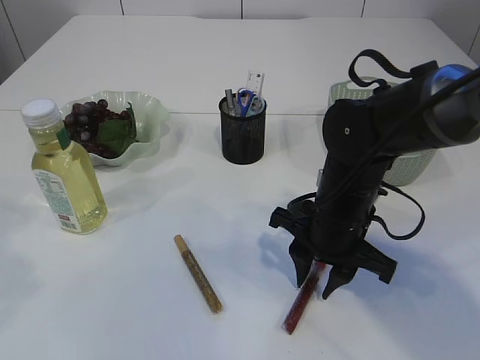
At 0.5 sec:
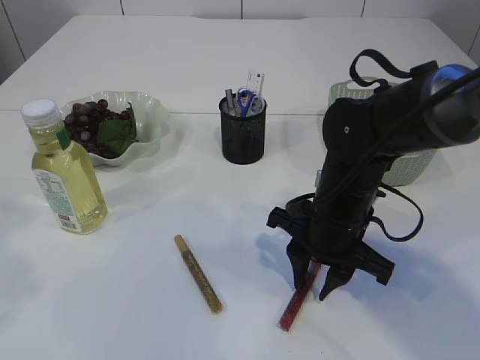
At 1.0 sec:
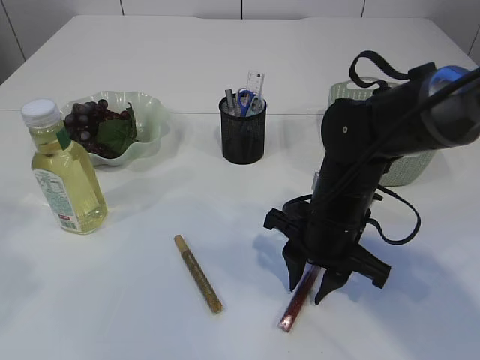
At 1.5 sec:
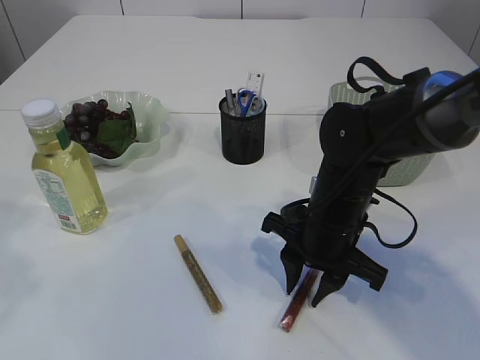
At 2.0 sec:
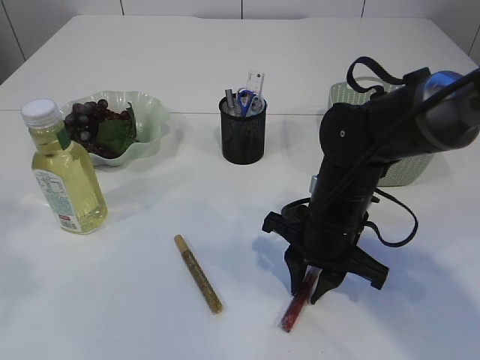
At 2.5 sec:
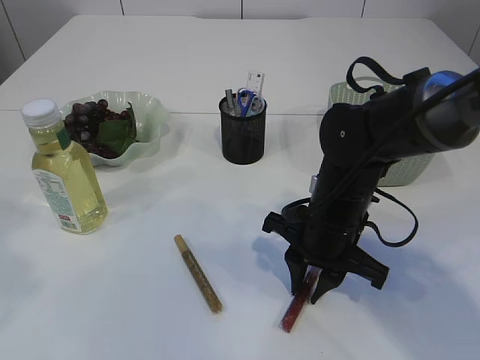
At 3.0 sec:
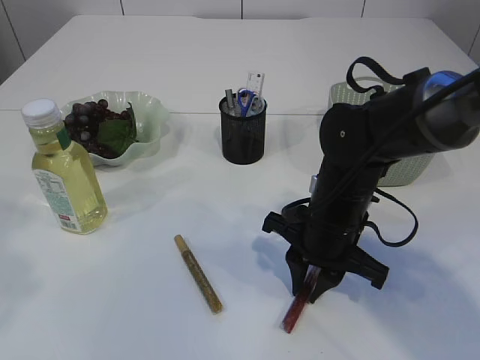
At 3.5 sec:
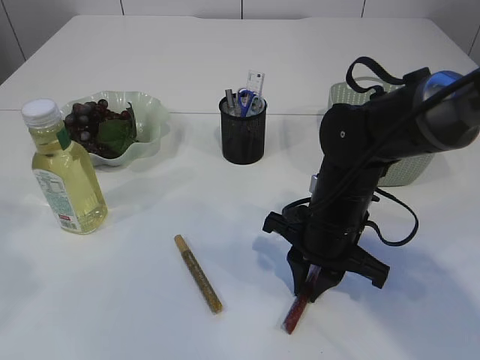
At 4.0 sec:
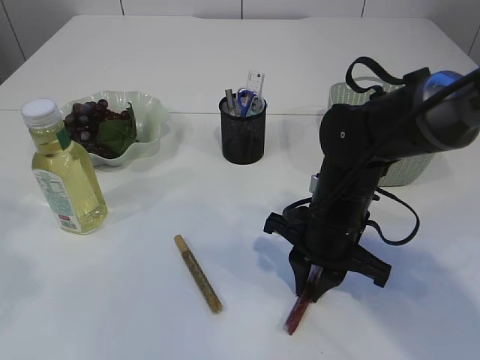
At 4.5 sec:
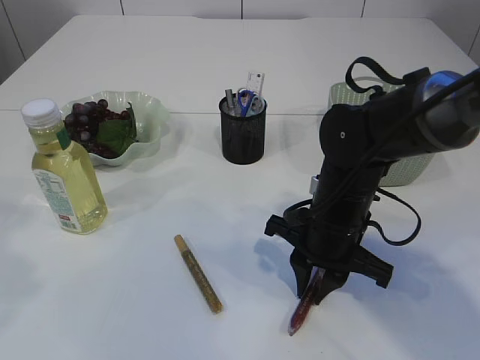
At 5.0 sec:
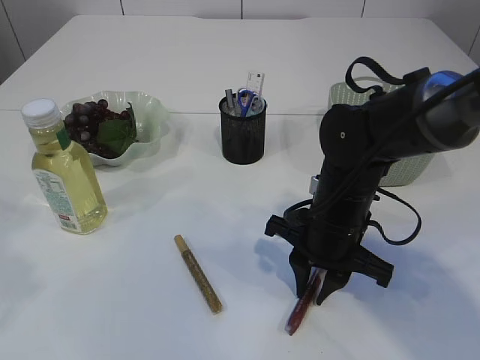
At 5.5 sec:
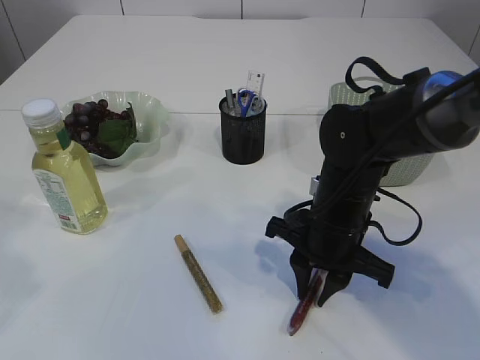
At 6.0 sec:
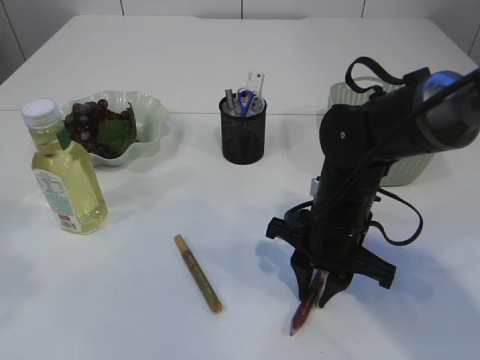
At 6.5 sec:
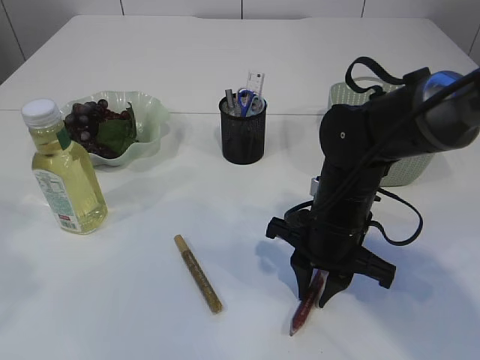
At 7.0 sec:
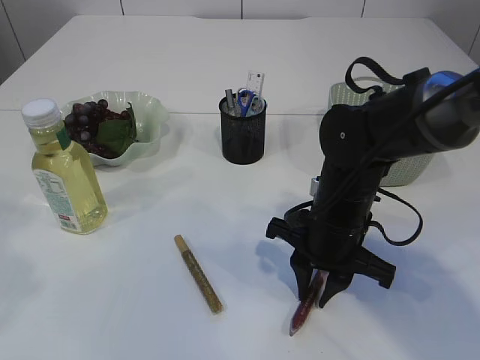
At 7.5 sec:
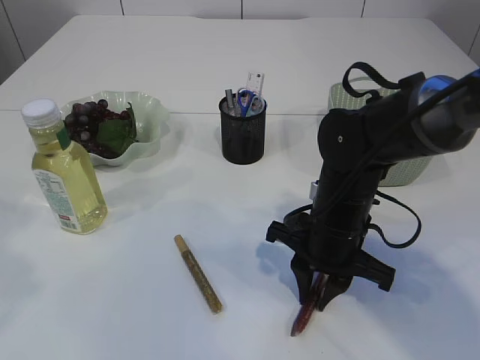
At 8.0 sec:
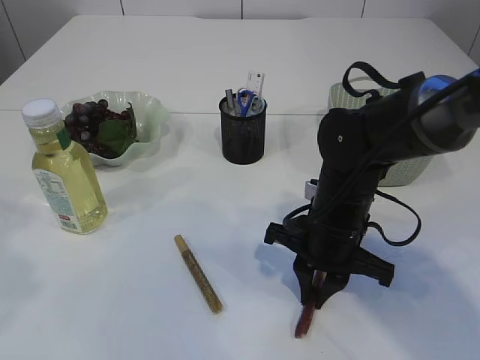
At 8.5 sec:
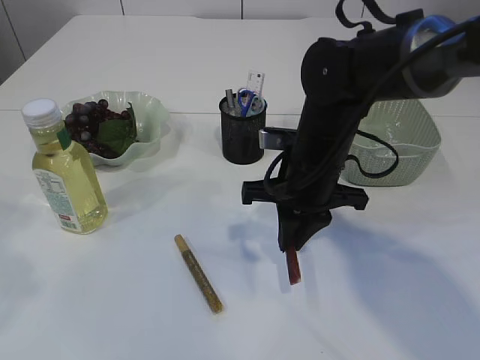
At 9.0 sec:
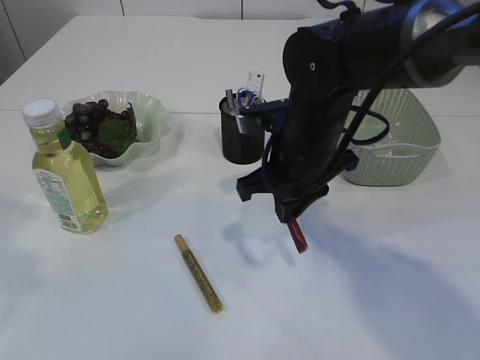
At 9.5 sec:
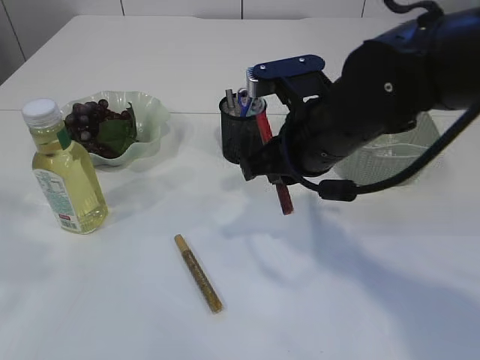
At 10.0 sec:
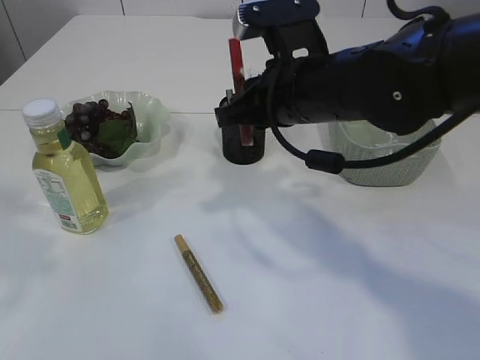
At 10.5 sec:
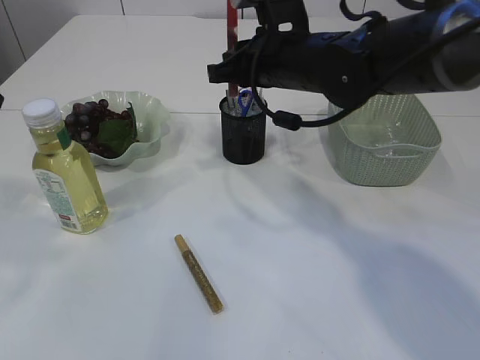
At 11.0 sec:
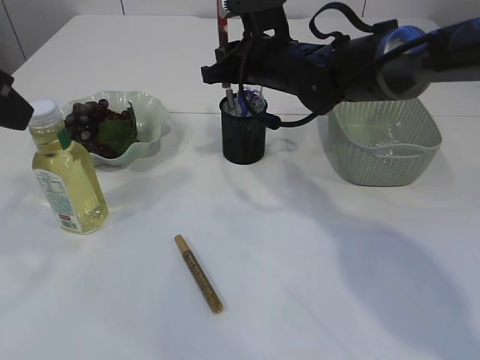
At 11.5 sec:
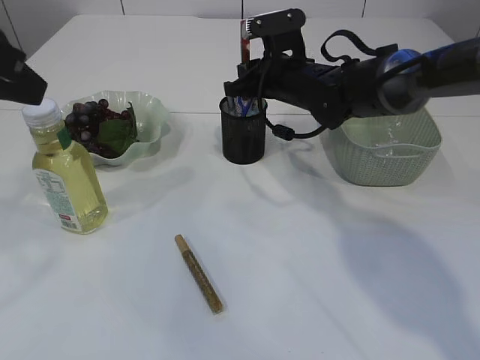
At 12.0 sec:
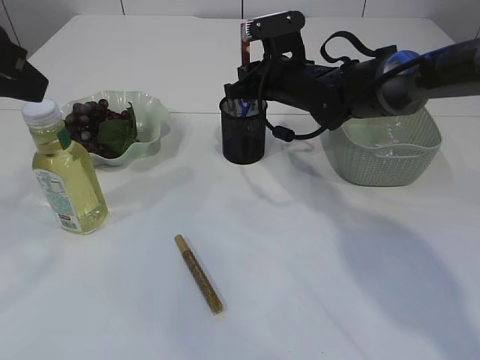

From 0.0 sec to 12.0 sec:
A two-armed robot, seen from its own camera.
Step, from 0.0 sec to 9.0 sec: pick up the red glue.
From 0.0 sec to 4.0 sec: The two grippers keep their place.
From 4.0 sec to 6.0 sec: Both grippers stay about where they are.
From 6.0 sec to 8.0 sec: Both grippers stay put.
From 8.0 sec to 10.0 sec: The right gripper moves upward, approximately 15 cm.
From 10.0 sec to 12.0 sec: The left gripper shifts by roughly 5 cm; the right gripper shifts some 15 cm forward and downward.

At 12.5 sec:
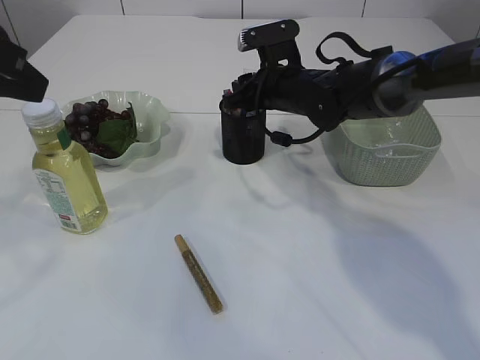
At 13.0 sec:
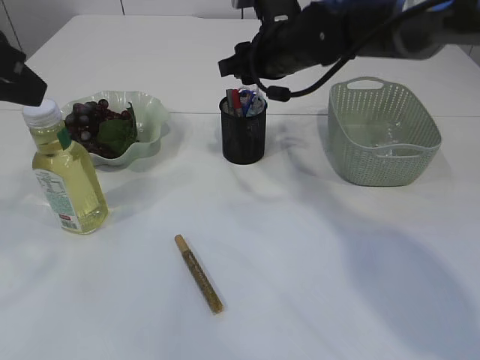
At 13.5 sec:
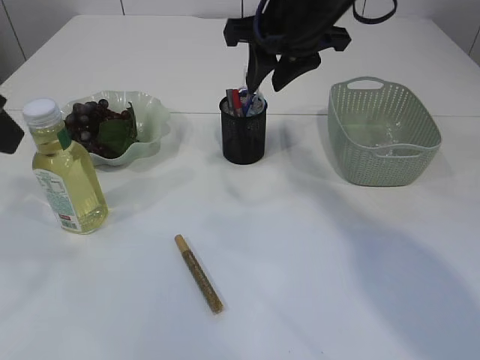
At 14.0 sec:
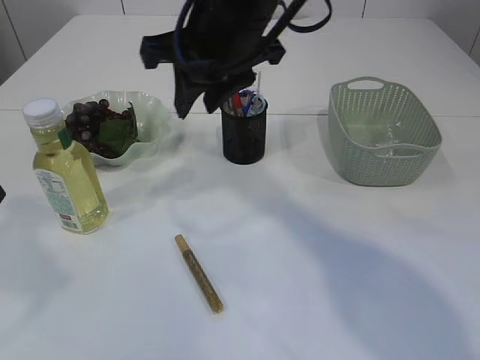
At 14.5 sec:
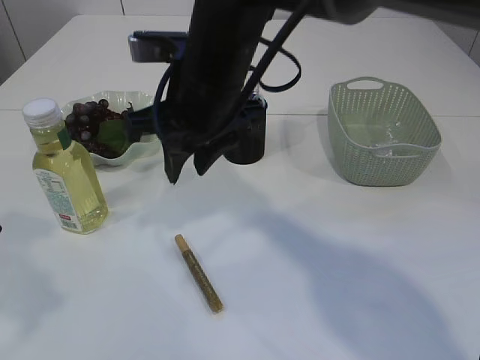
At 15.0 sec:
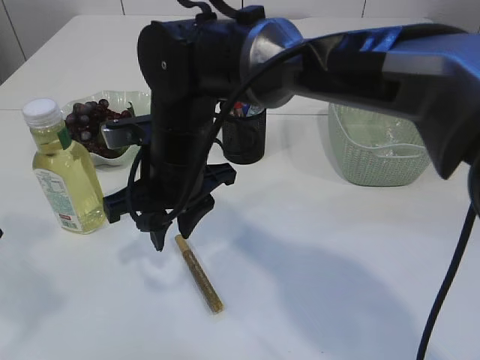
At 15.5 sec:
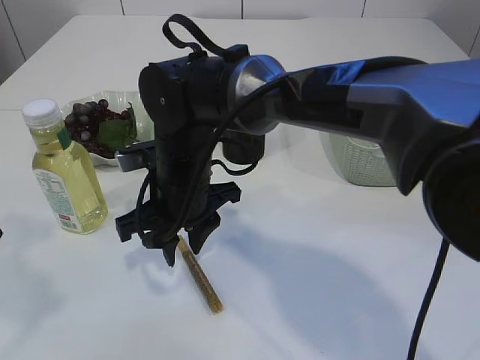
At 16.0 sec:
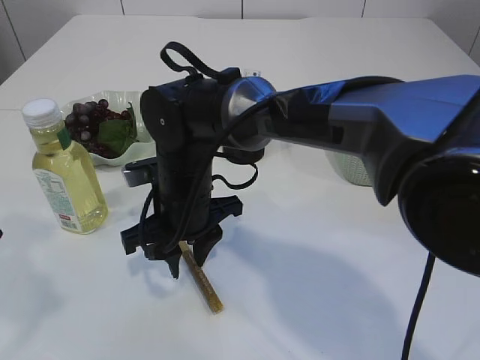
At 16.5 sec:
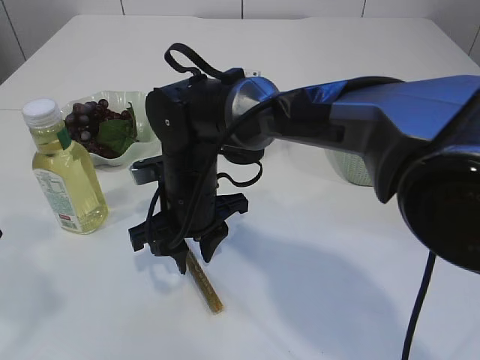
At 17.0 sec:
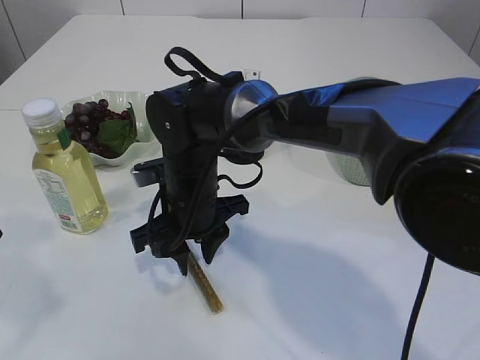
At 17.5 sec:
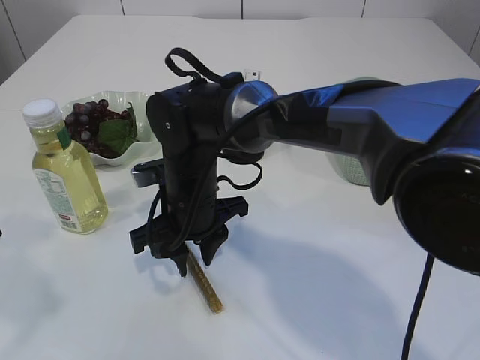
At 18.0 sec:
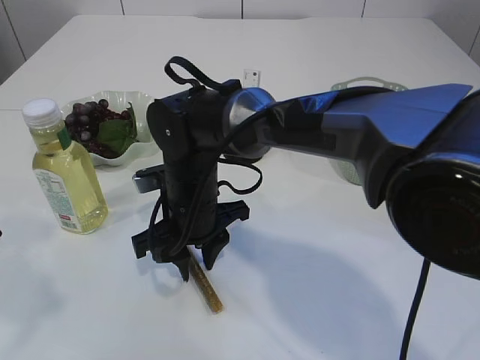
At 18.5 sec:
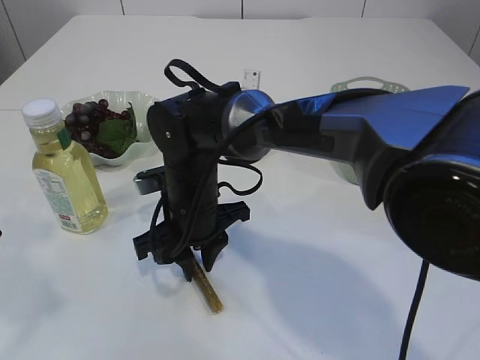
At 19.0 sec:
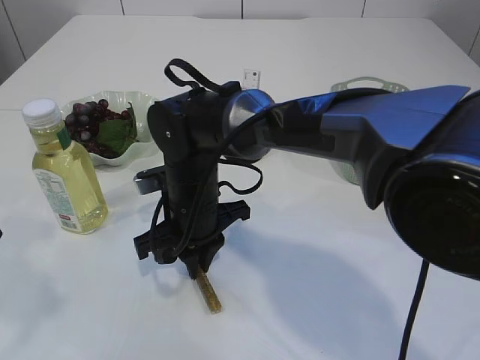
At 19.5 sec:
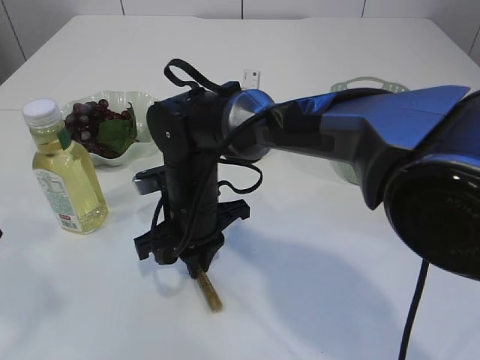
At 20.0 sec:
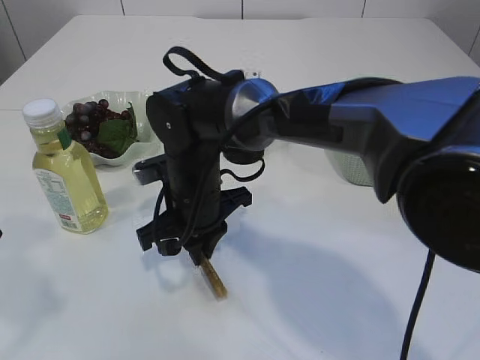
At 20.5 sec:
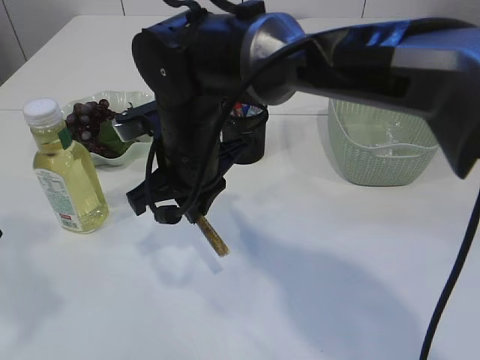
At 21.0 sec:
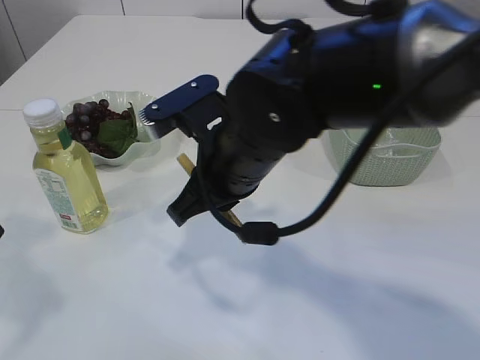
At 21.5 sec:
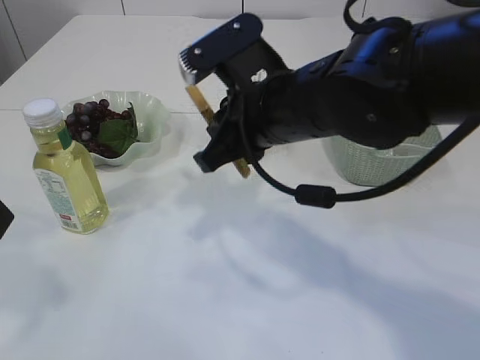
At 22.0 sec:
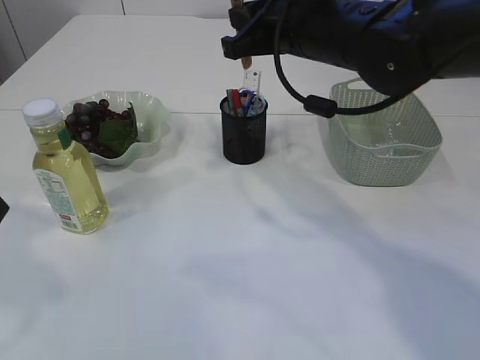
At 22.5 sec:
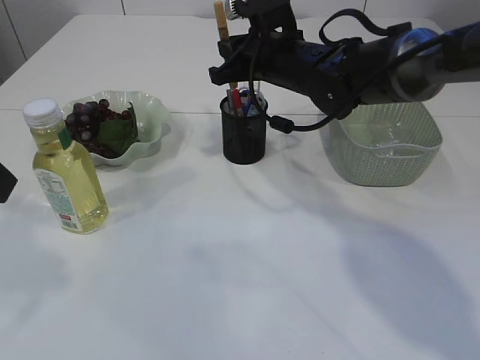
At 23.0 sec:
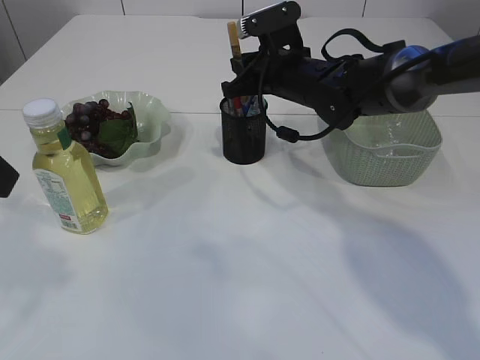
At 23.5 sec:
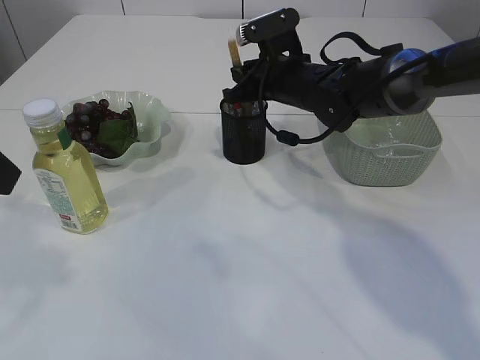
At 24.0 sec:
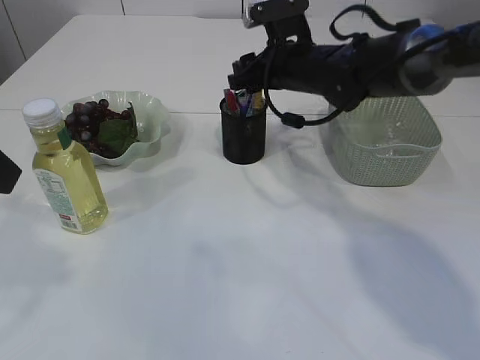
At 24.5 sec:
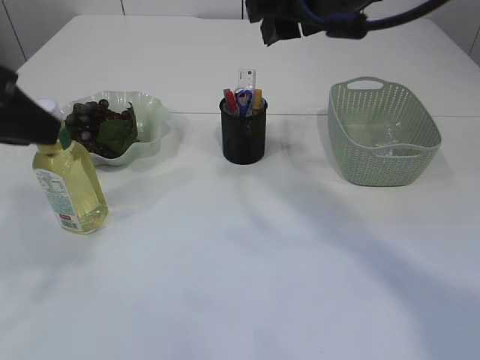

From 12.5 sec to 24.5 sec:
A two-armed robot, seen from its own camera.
Step, from 13.5 sec to 20.5 sec: pick up the yellow glue.
Step, from 21.0 sec to 24.5 sec: place the yellow glue into the pen holder.
From 12.5 sec to 14.5 sec: The left gripper heads backward, covering some 5 cm; the right gripper travels backward, to the left and upward by roughly 20 cm.
From 14.5 sec to 16.5 sec: The right gripper is displaced downward by roughly 15 cm.
From 16.5 sec to 18.5 sec: There are only small adjustments of the grippers.
From 18.5 sec to 20.5 sec: The right gripper is displaced upward by some 10 cm, and closes its fingers.
From 20.5 sec to 22.5 sec: The right gripper heads to the right and forward, covering some 15 cm.
From 22.5 sec to 24.5 sec: The right gripper is displaced upward and backward by some 15 cm, and opens up.

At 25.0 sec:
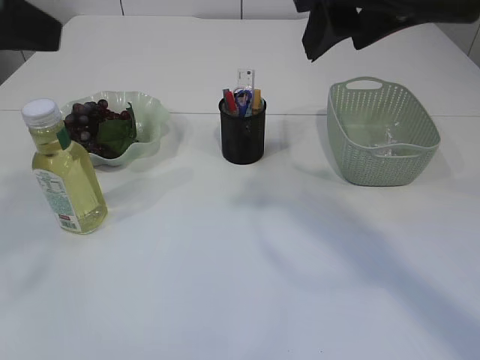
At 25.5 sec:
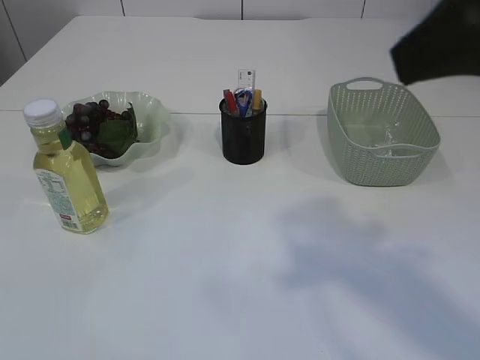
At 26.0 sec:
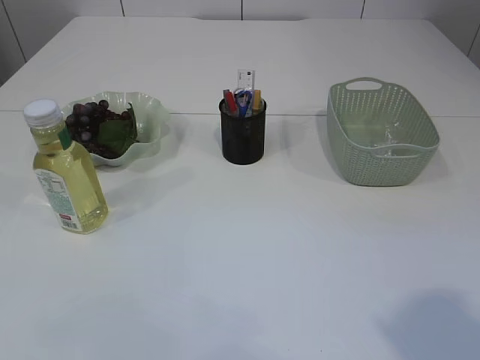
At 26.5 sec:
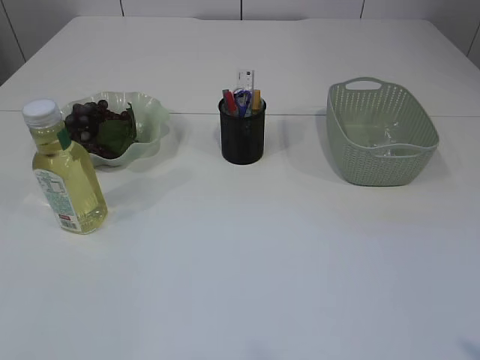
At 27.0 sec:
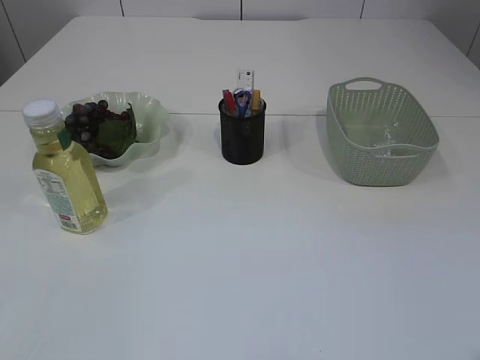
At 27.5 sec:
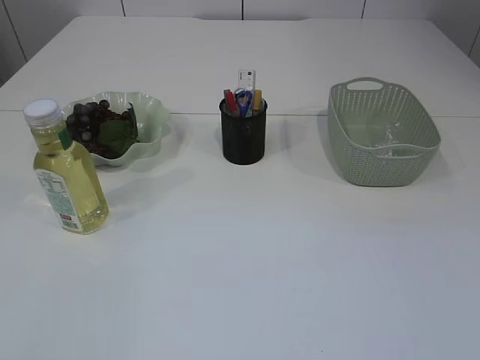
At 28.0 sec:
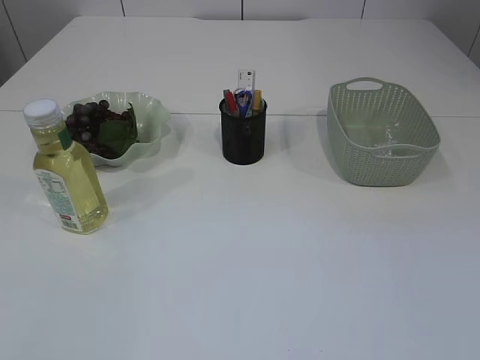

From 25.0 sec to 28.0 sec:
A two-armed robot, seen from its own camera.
From 25.0 sec to 26.5 sec: The right gripper shifts about 30 cm backward and to the right; the left gripper moves backward, to the left and downward, some 25 cm.
